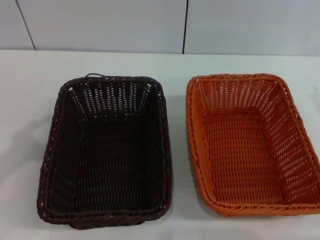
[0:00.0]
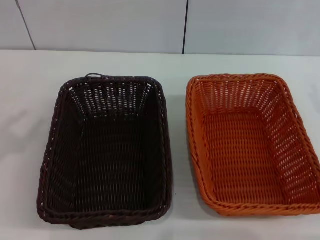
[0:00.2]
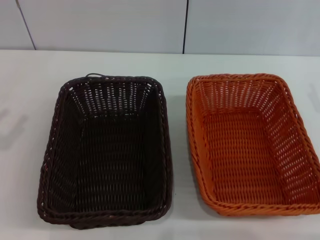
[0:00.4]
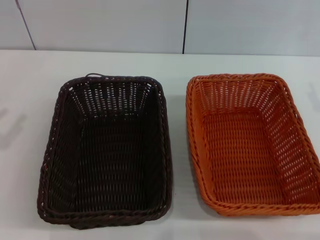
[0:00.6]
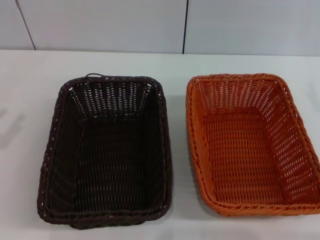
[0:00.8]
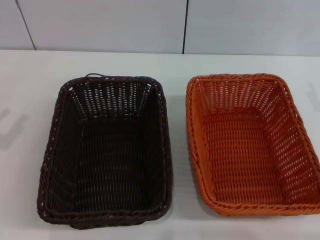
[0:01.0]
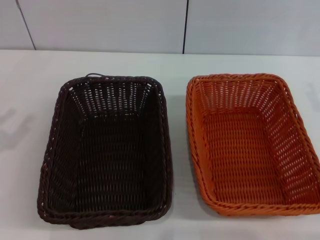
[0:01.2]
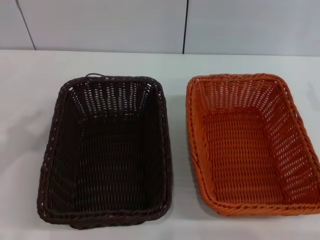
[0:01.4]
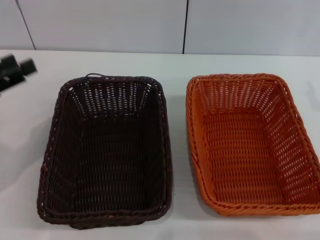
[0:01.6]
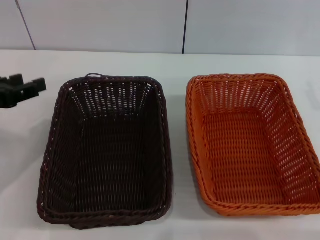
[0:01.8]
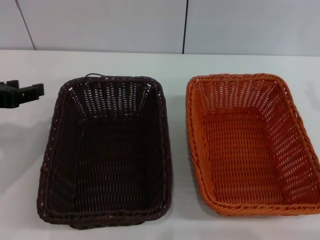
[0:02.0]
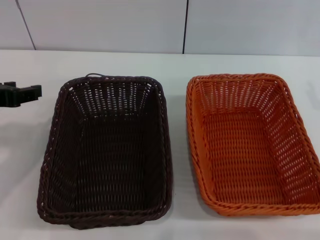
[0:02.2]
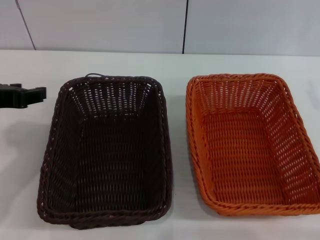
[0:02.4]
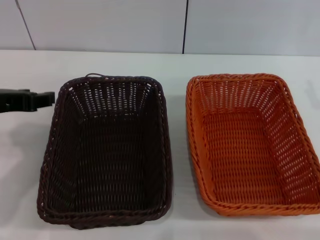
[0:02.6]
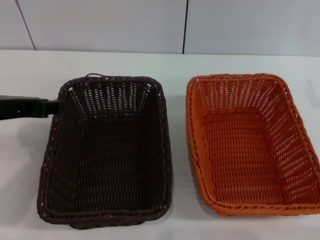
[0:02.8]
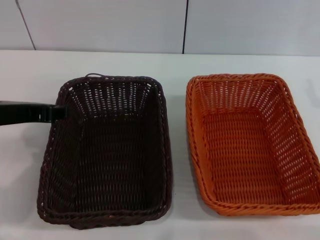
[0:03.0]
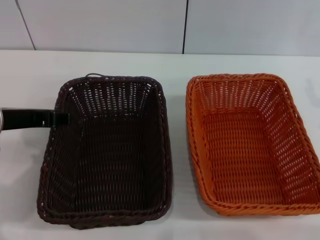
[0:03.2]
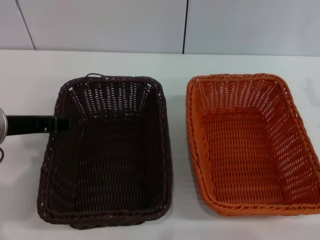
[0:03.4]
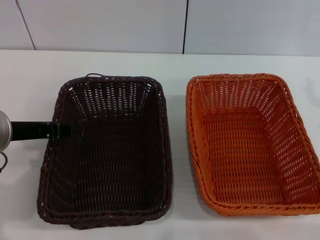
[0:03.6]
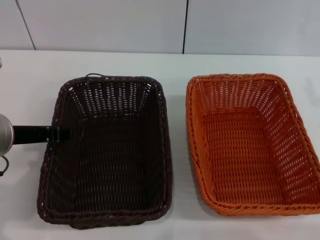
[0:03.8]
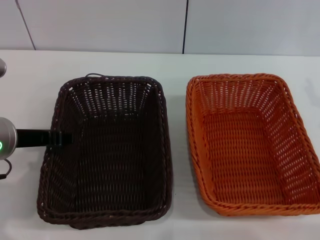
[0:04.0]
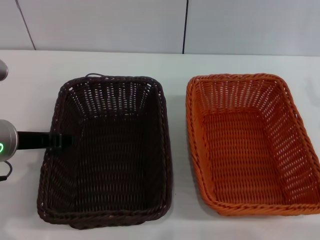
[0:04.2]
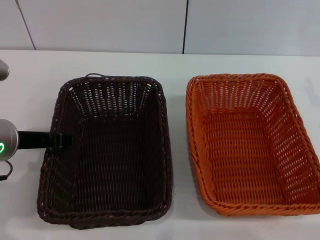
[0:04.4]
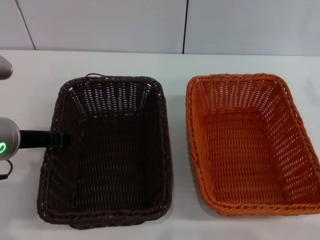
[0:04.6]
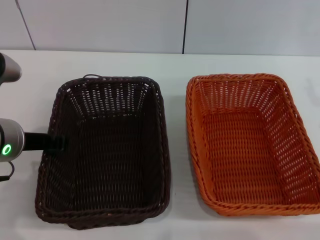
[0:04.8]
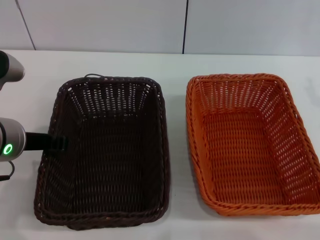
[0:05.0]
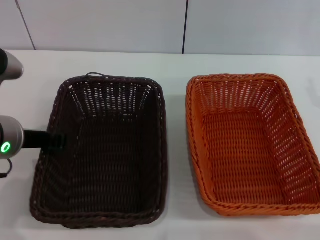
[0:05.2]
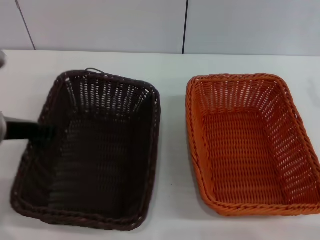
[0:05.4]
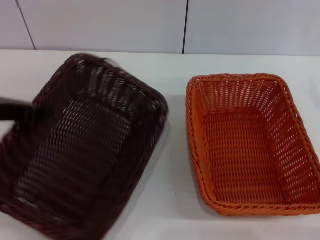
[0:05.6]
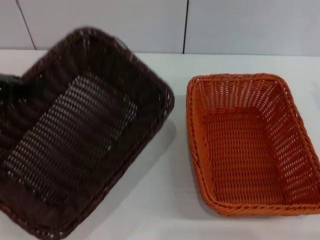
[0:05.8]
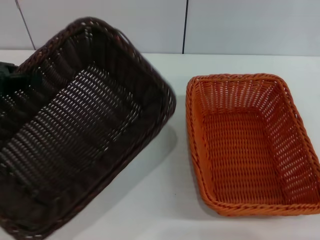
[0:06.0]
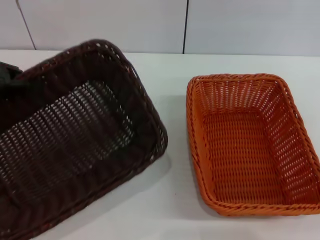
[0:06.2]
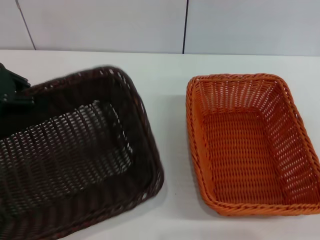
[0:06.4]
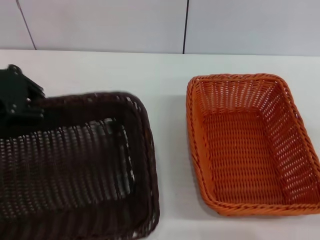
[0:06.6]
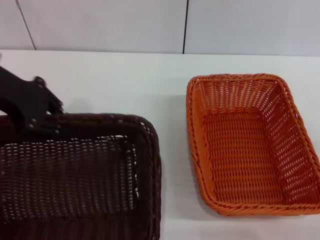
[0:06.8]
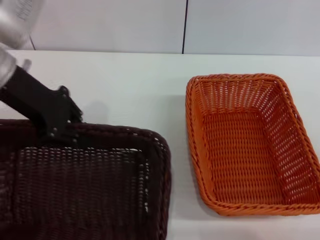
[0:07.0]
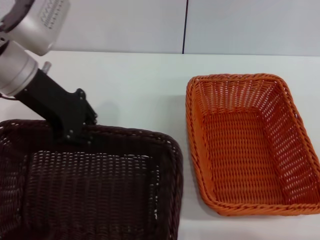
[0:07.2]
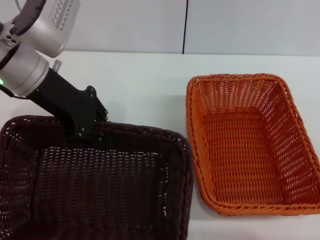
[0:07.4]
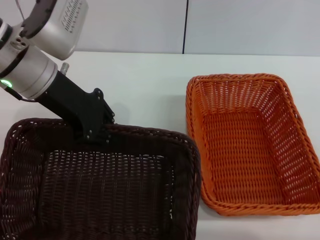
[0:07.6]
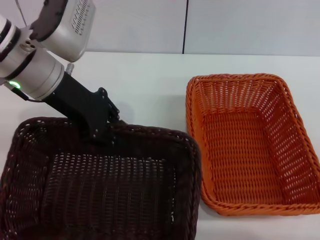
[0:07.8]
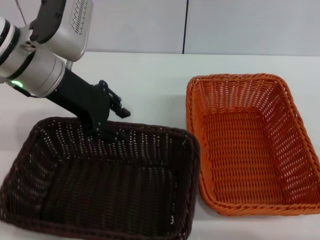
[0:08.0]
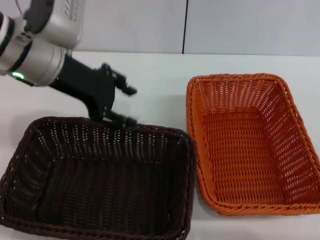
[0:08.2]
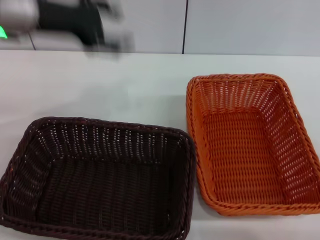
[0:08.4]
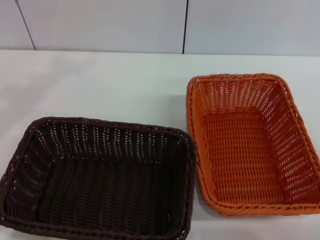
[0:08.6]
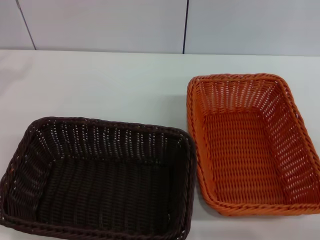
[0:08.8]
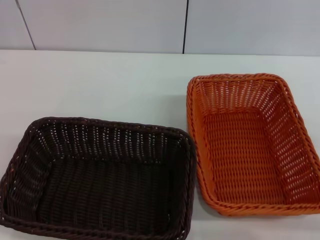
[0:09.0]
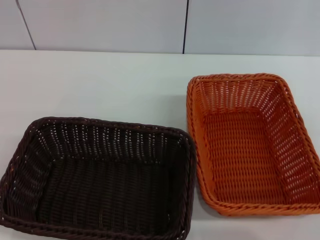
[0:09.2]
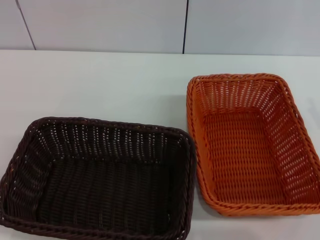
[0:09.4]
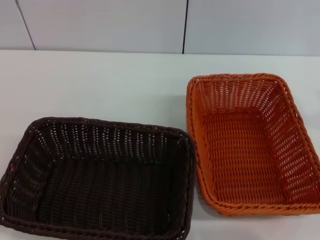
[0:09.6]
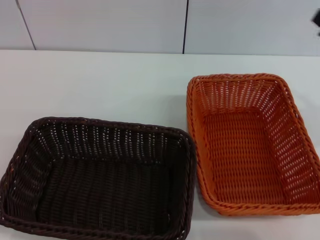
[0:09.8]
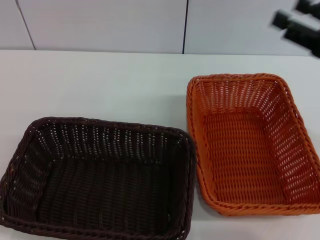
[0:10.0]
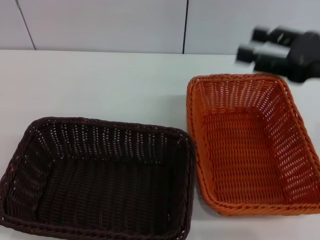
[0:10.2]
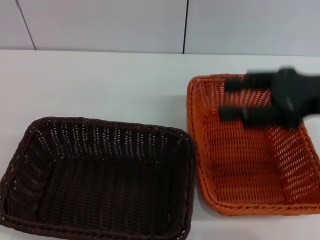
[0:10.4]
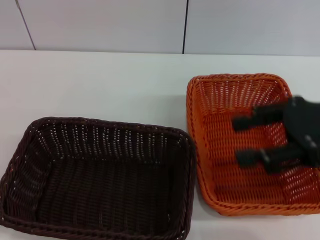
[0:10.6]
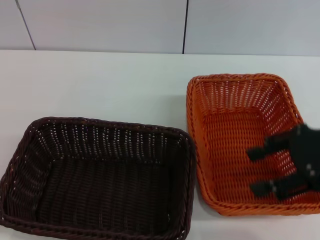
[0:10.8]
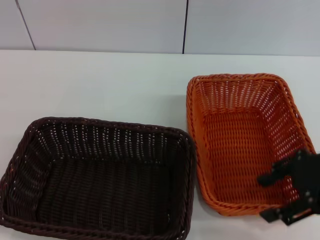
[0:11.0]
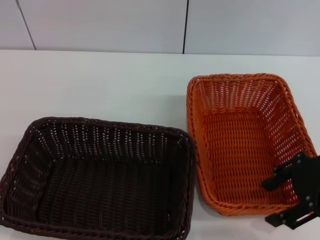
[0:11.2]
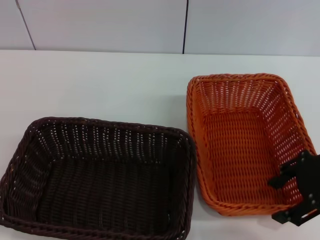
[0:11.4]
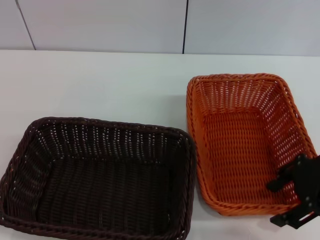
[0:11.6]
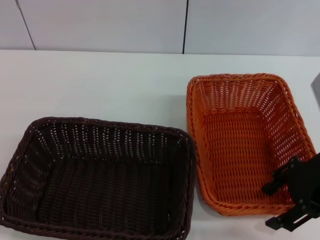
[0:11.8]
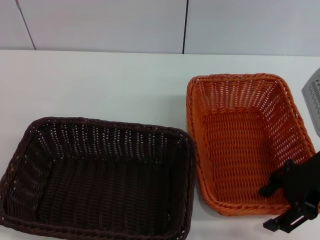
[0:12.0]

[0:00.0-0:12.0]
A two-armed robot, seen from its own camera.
Step, 0:00.0 to 0:05.4: Pick up the dark basket with the left gripper.
Step, 0:05.6 to 0:08.0: Place the dark basket in the center of view with the left gripper.
0:00.0 to 0:01.6: The left gripper moves some 5 cm.
0:01.6 to 0:03.0: The left gripper is displaced to the right by approximately 10 cm.
0:03.0 to 0:04.4: The left gripper travels downward by approximately 5 cm.
0:04.4 to 0:06.0: The left gripper heads to the left and upward, covering approximately 15 cm, and closes.
0:06.0 to 0:07.6: The left gripper moves to the right and forward, some 15 cm, while the right gripper shifts approximately 10 cm backward.
0:07.6 to 0:09.0: The left gripper travels to the left by about 25 cm, and opens. The right gripper shifts some 5 cm forward.
0:09.0 to 0:10.4: The right gripper goes about 15 cm upward and to the left.
0:10.4 to 0:12.0: The right gripper shifts some 5 cm downward.

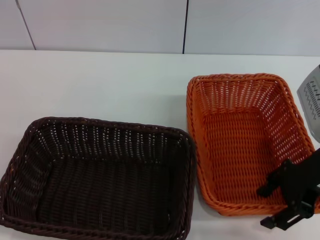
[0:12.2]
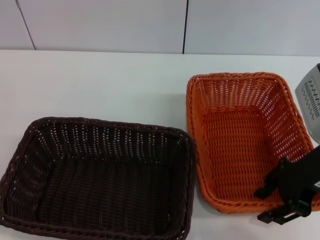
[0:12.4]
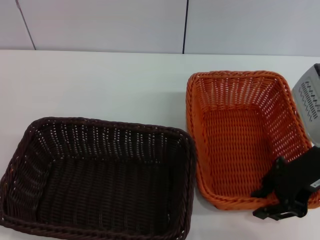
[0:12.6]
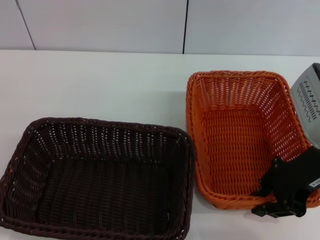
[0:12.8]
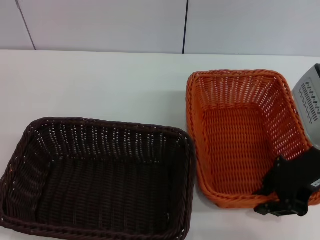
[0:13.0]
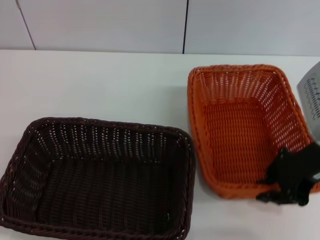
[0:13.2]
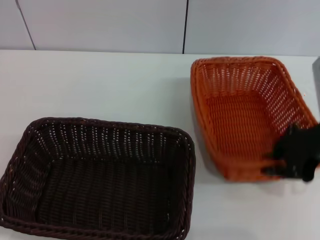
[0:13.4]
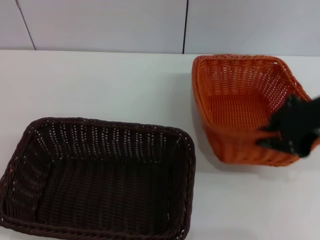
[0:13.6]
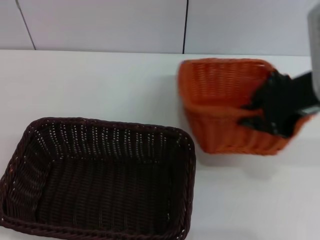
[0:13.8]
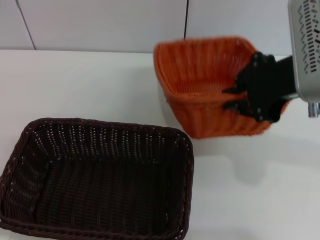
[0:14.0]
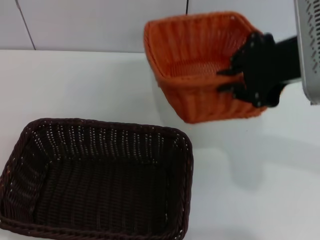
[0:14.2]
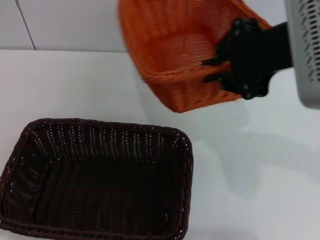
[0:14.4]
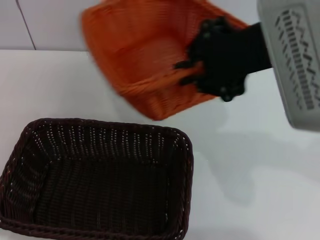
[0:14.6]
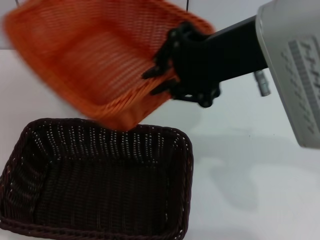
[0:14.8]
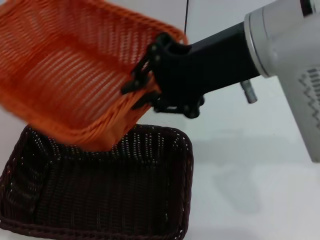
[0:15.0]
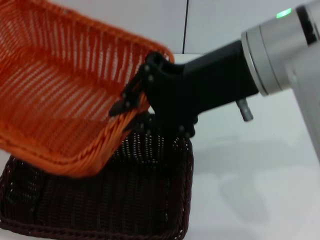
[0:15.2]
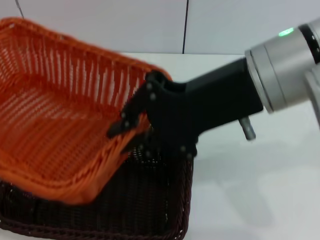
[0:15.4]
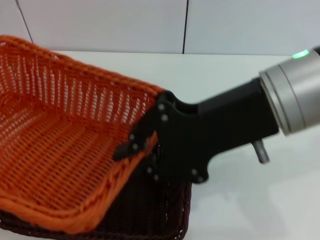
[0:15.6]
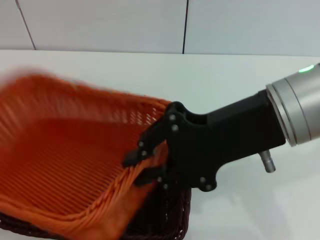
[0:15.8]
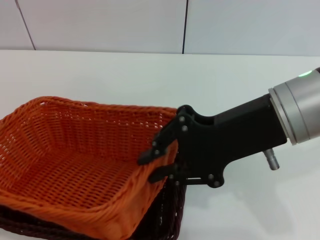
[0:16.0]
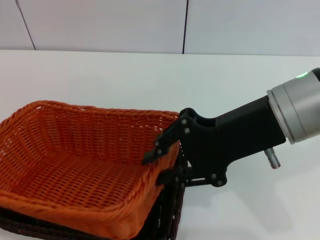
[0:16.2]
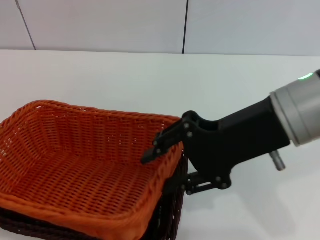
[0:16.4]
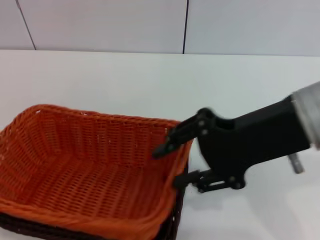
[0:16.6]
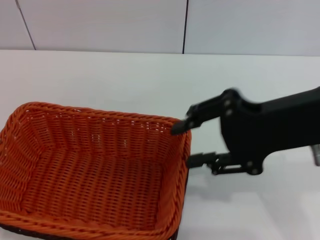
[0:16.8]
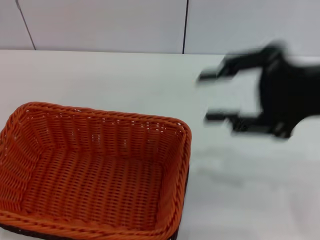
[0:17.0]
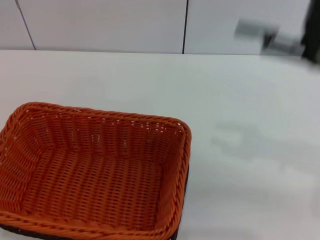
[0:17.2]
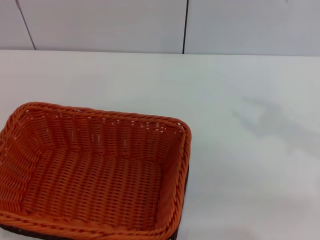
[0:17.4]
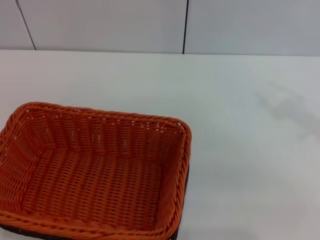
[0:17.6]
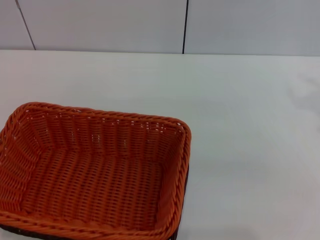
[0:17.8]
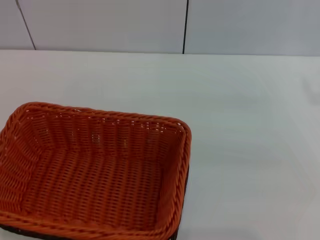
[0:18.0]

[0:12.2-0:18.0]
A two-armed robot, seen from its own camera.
Step, 0:14.0 to 0:16.6: Place the light basket on the dark basket with the right gripper.
0:12.2 to 0:13.6: The right gripper shifts approximately 5 cm upward, and closes.
0:13.6 to 0:15.0: The right gripper moves to the left and upward, some 15 cm.
0:15.0 to 0:16.6: The right gripper travels downward by about 5 cm.
0:16.6 to 0:18.0: The right gripper moves to the right, about 20 cm.
